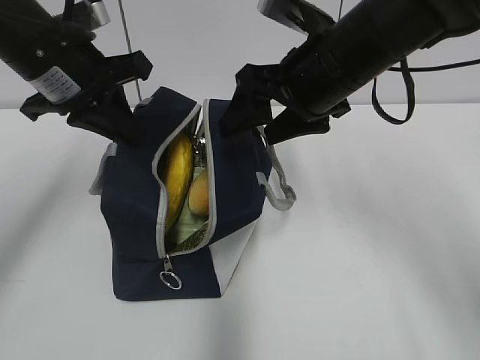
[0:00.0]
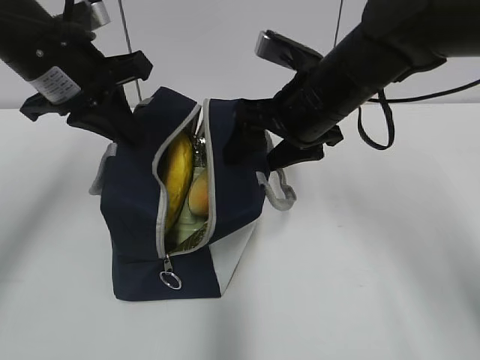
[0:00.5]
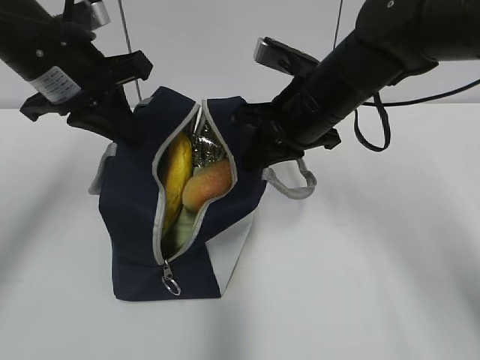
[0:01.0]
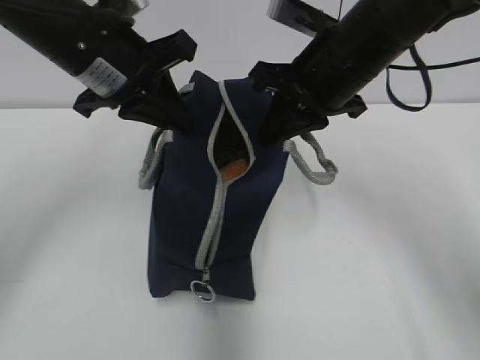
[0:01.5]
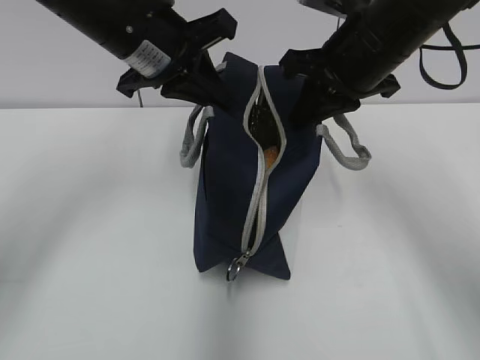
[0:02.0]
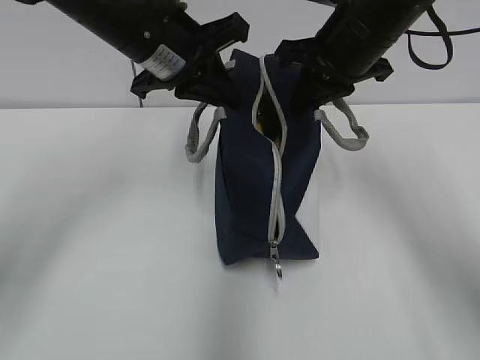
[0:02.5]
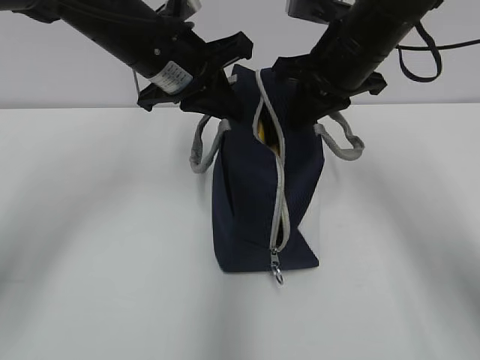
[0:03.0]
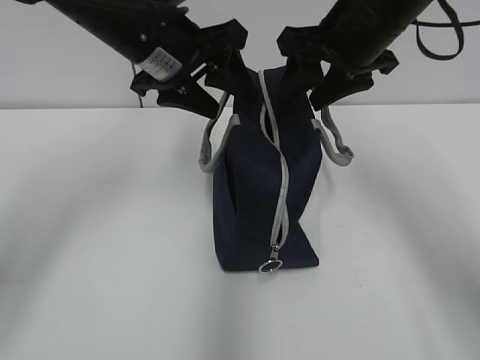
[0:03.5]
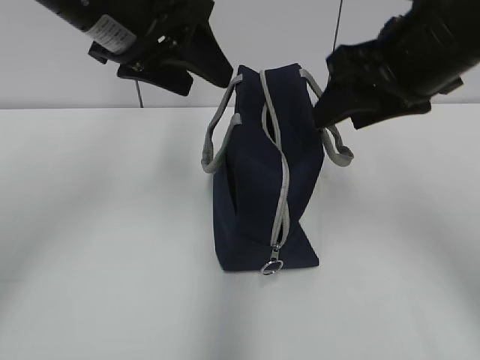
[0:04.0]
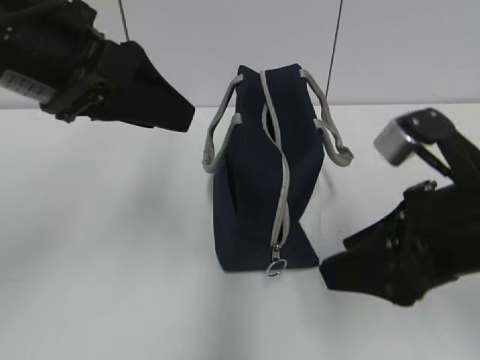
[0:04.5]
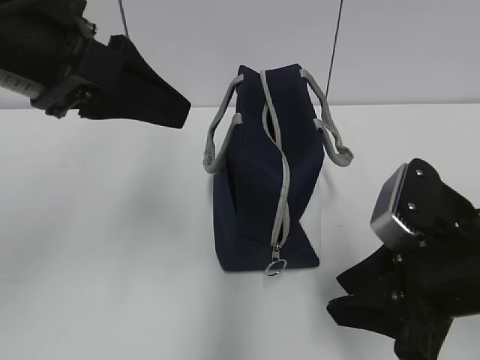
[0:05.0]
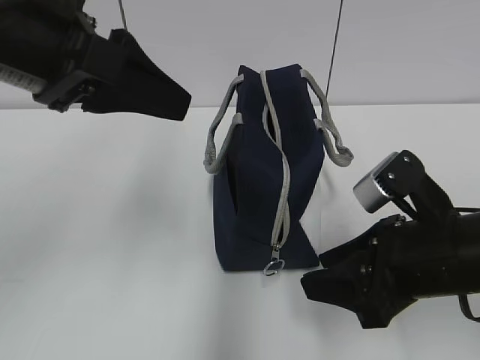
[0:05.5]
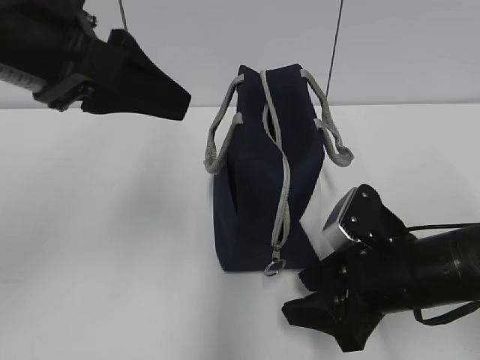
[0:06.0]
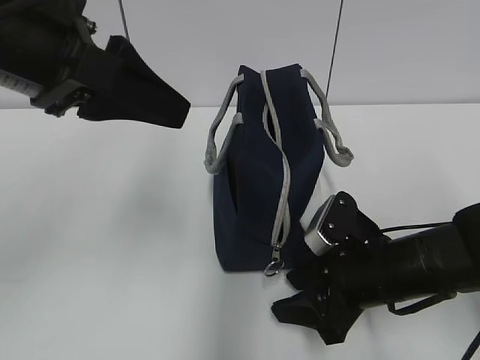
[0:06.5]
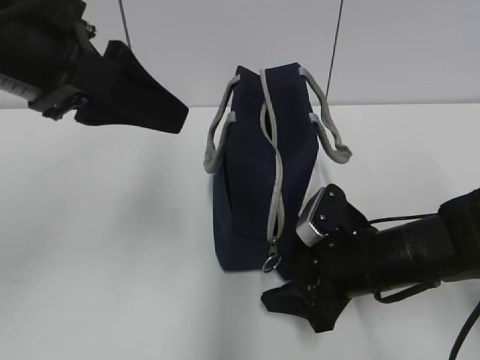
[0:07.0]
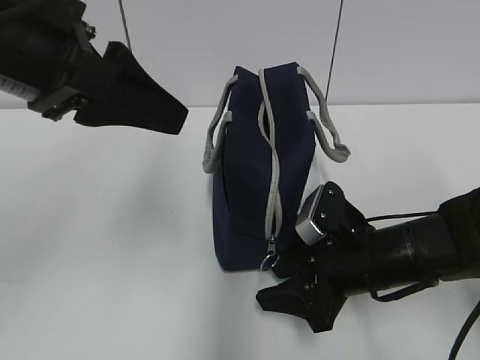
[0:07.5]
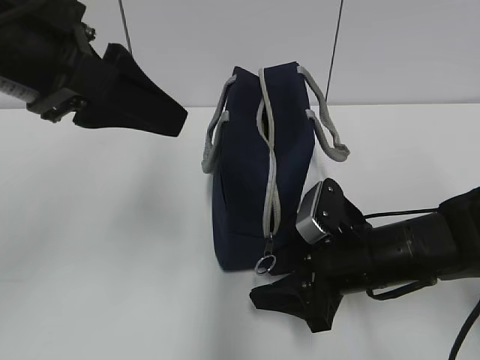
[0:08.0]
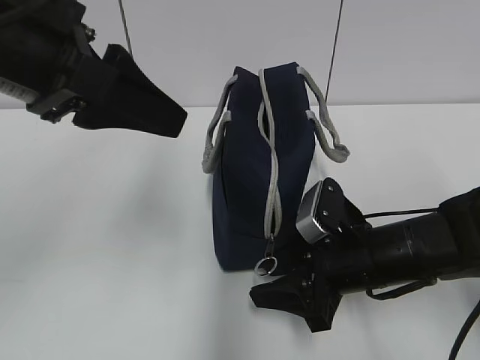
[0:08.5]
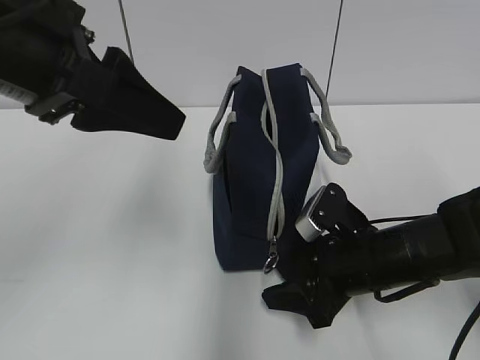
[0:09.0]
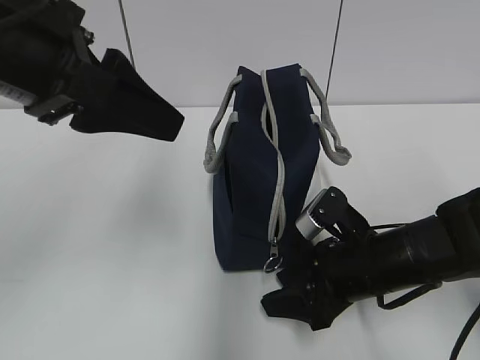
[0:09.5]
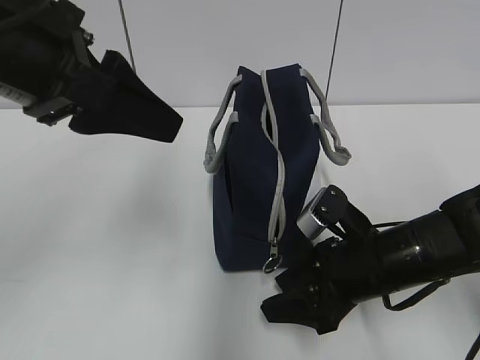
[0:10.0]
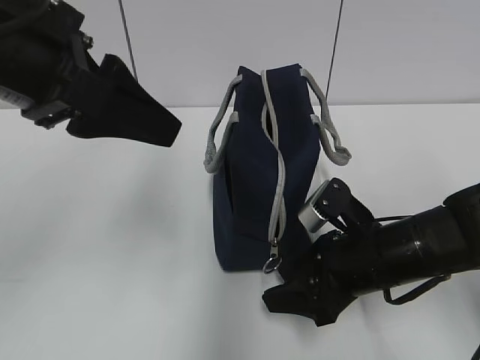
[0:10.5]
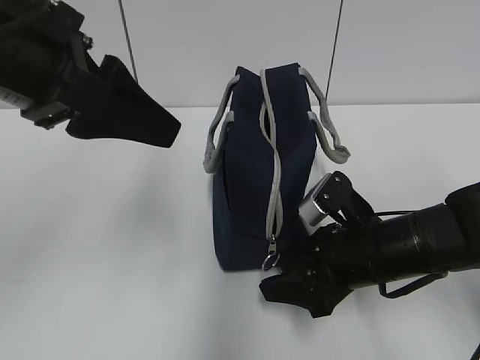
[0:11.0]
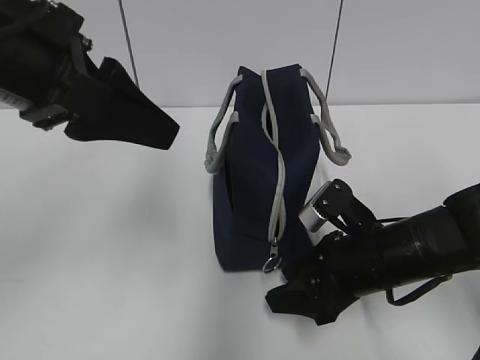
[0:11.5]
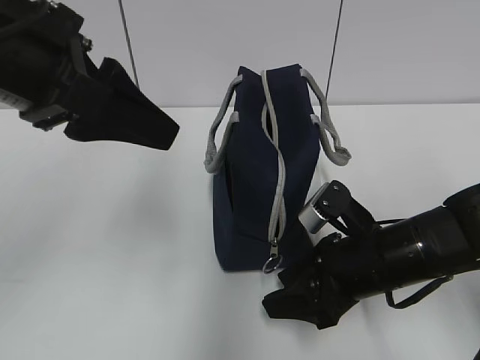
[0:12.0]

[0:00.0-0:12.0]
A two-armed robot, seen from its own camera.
0:00.0 to 0:02.0: The right gripper closes. The left gripper is displaced to the right by some 10 cm.
0:02.0 to 0:04.0: The left gripper ends up about 5 cm from where it was, and opens up; the right gripper heads backward, covering roughly 5 cm, and opens.
0:04.0 to 0:06.0: The left gripper travels backward by approximately 10 cm; the right gripper shifts roughly 20 cm downward.
0:06.0 to 0:12.0: There are only small adjustments of the grippers.

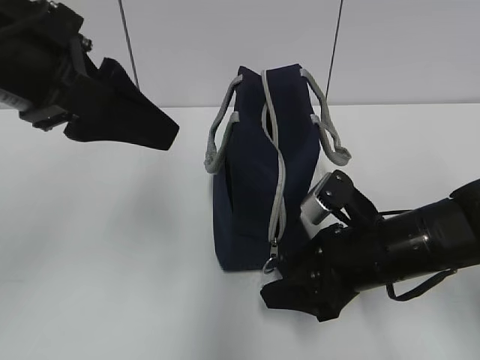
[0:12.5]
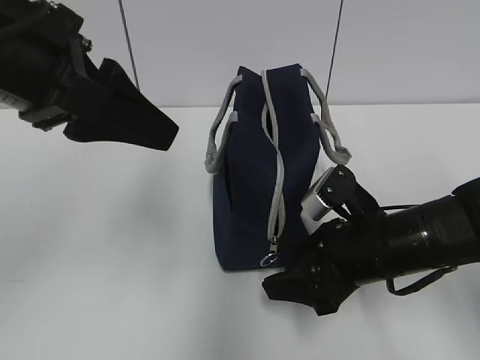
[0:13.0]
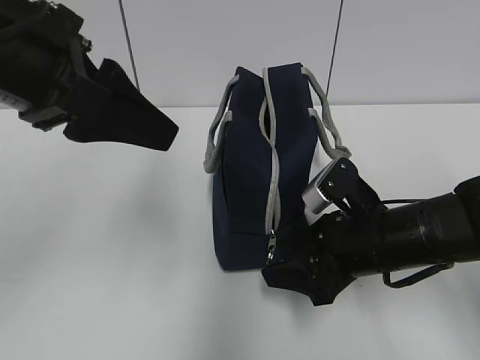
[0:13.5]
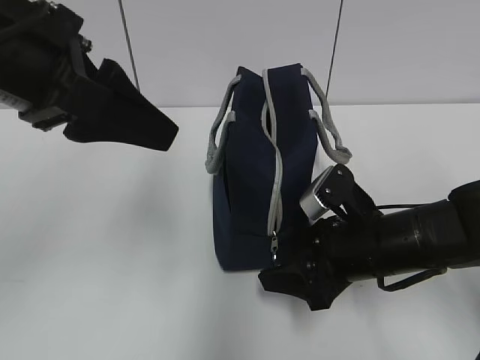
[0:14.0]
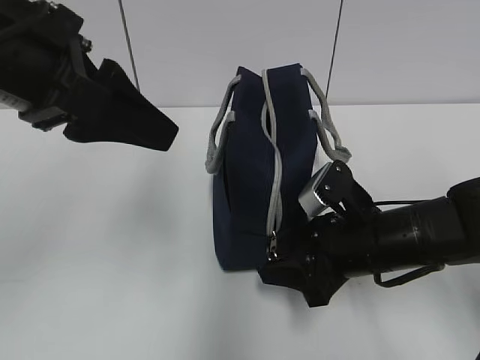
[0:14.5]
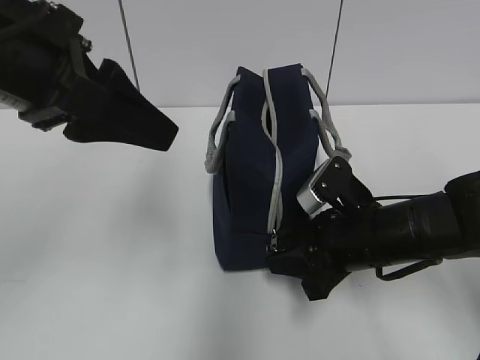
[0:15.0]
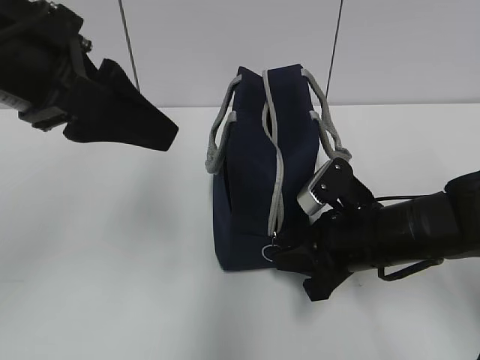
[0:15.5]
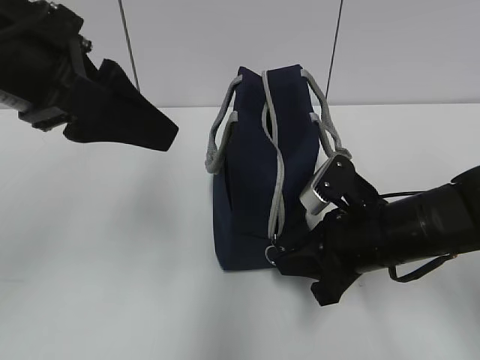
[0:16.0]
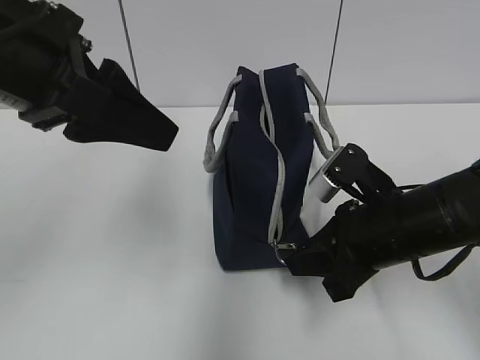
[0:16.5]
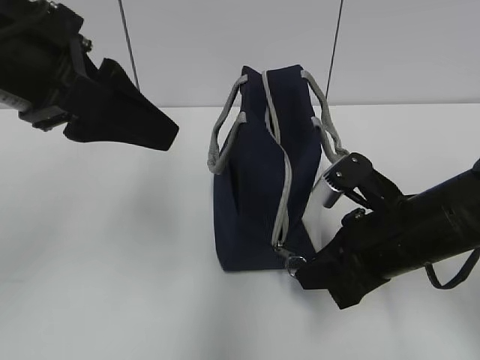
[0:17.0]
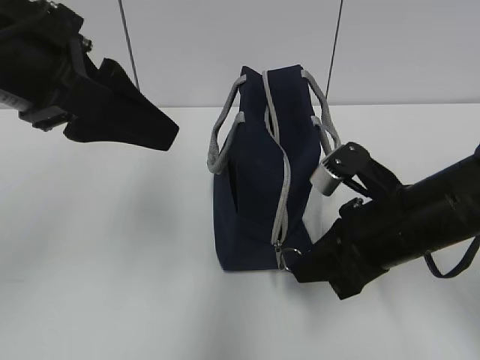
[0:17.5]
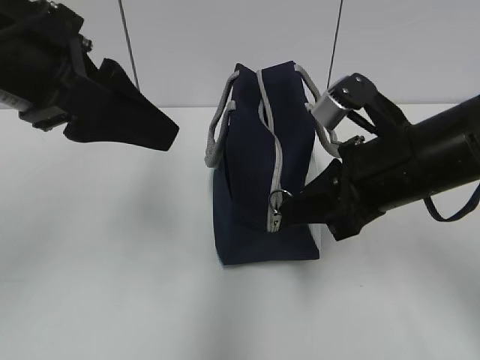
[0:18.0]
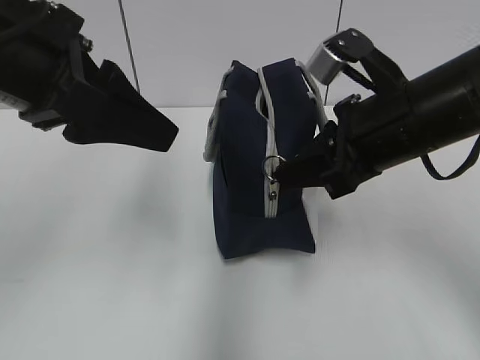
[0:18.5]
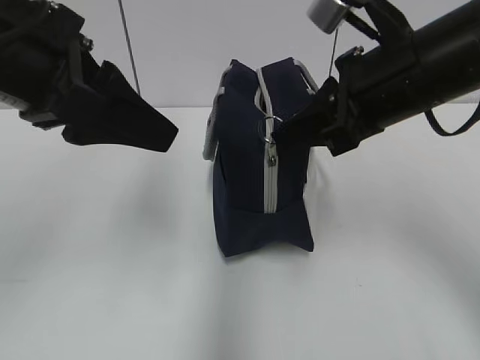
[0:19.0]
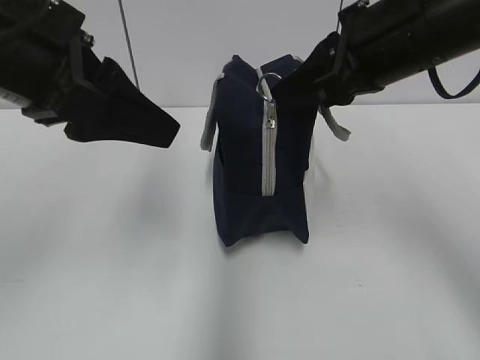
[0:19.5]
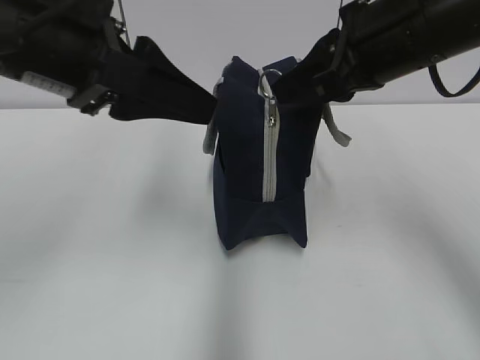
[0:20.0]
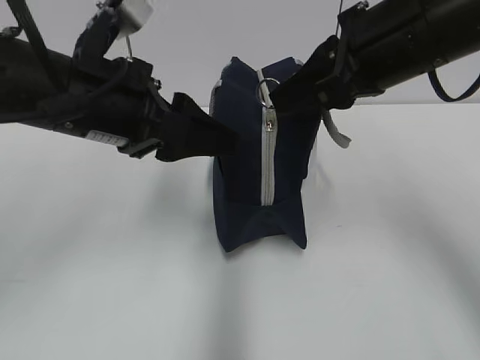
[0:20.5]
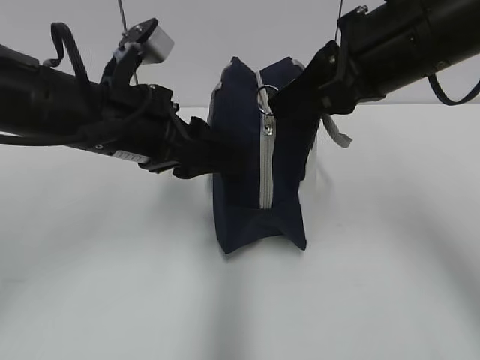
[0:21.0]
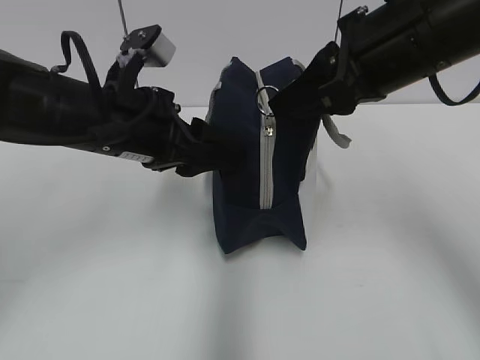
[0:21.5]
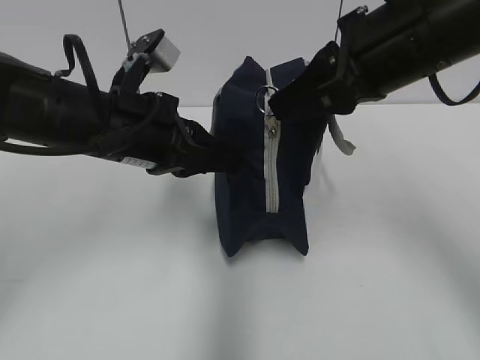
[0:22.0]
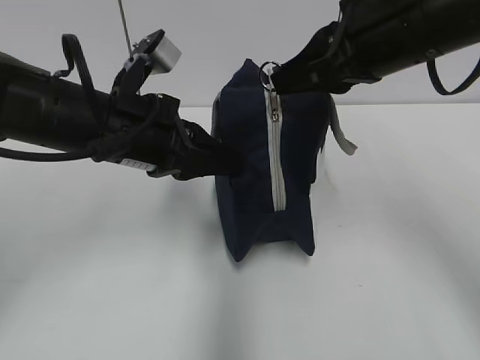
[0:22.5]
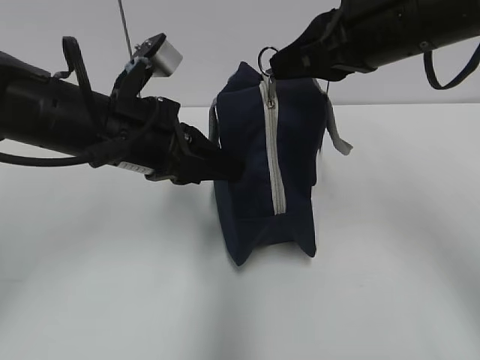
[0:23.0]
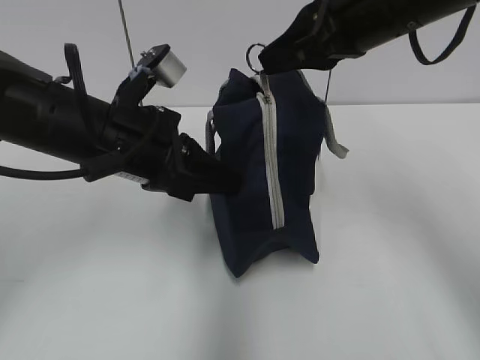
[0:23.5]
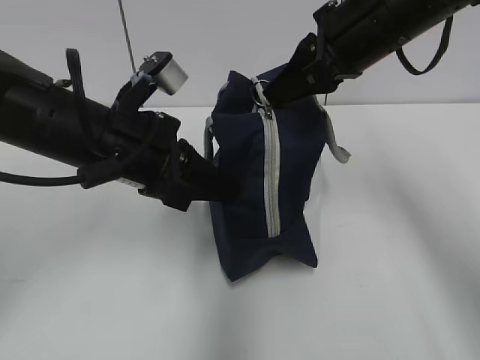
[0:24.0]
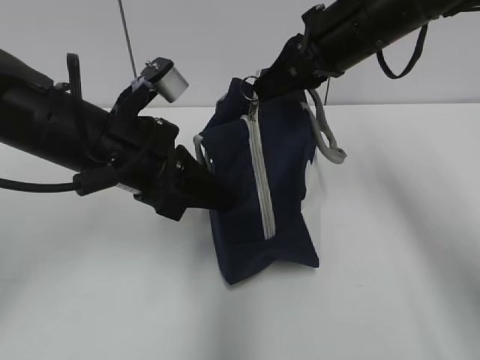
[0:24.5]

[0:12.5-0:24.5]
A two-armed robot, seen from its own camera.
0:12.5 to 0:14.5: The grippers make only small movements.
0:14.5 to 0:16.5: The right gripper closes its fingers.
0:16.5 to 0:18.5: The right gripper shifts some 10 cm upward.
0:18.5 to 0:20.5: The right gripper heads upward, covering roughly 5 cm, while the left gripper is displaced downward by some 5 cm.
0:20.5 to 0:22.5: The left gripper closes up.
0:22.5 to 0:24.5: The right gripper travels forward by some 10 cm.

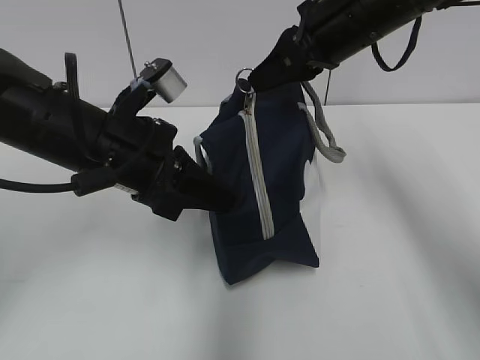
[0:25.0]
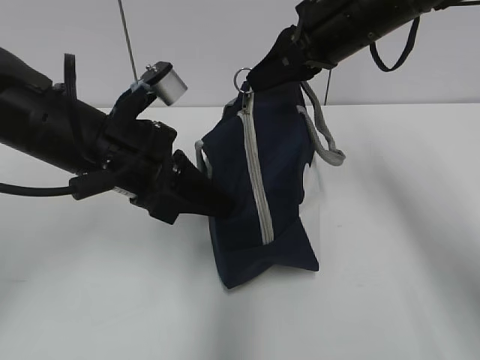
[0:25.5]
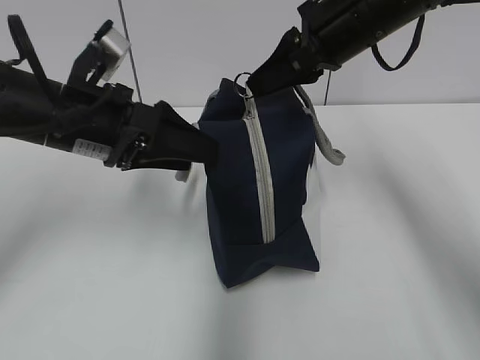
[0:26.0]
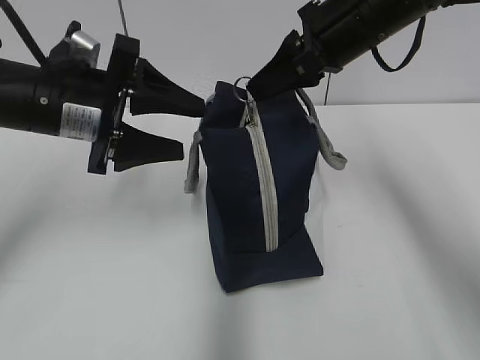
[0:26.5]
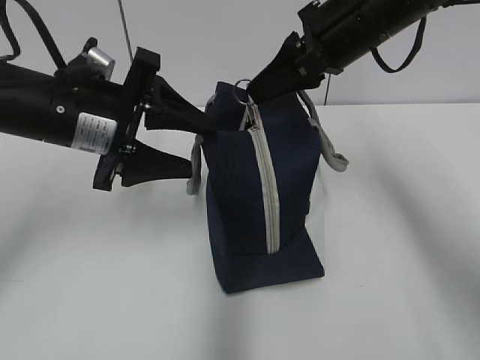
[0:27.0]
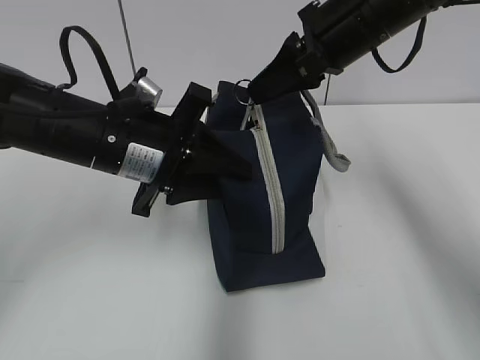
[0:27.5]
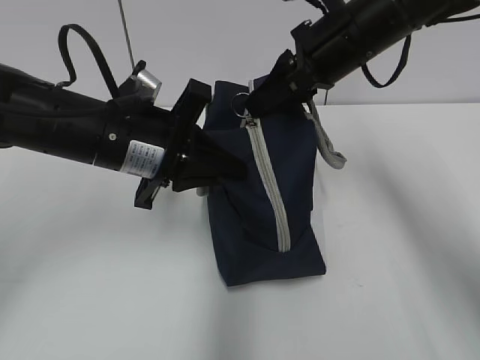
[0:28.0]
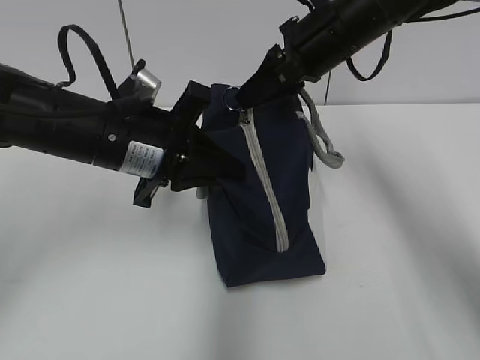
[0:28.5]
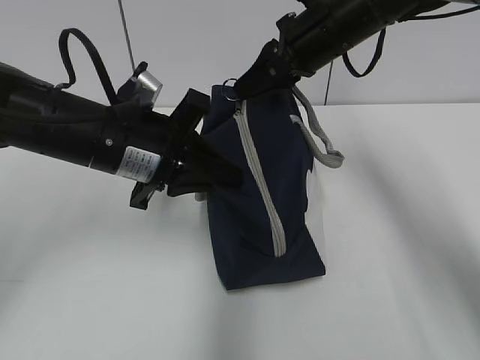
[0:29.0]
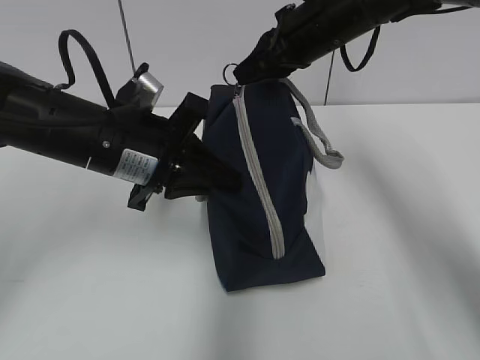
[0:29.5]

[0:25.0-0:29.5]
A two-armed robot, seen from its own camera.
0:25.0 to 0:27.0: The left gripper opens up.
0:27.0 to 0:29.5: The right gripper shifts about 5 cm forward; the left gripper closes its fingers.
